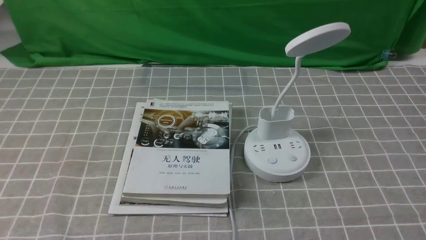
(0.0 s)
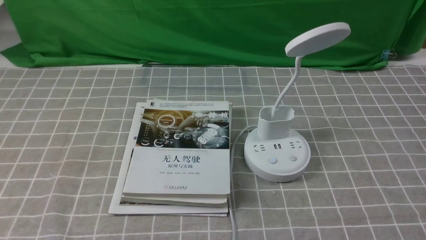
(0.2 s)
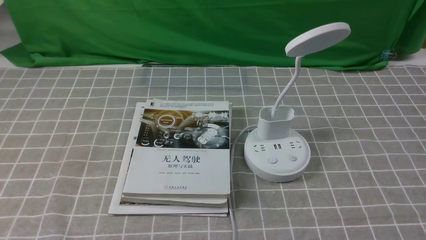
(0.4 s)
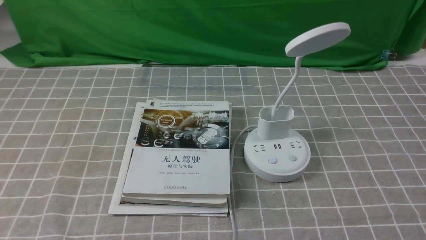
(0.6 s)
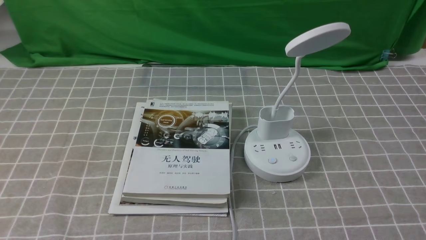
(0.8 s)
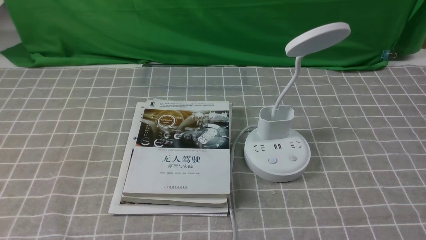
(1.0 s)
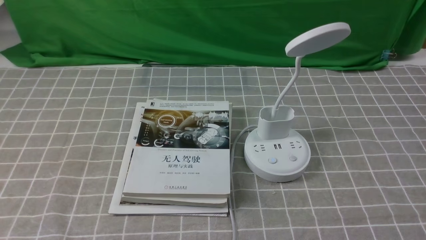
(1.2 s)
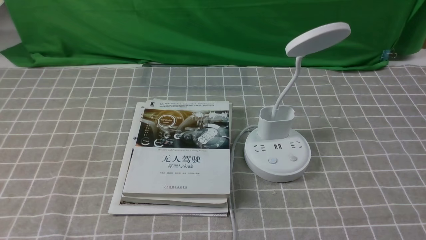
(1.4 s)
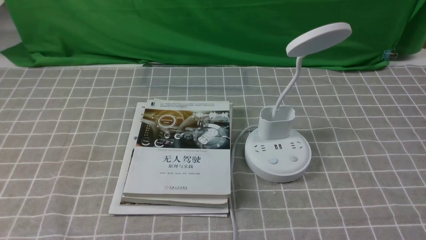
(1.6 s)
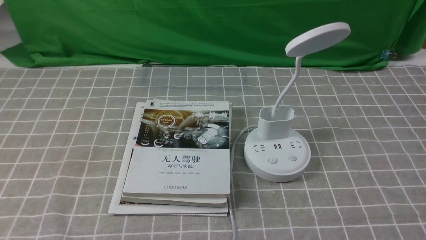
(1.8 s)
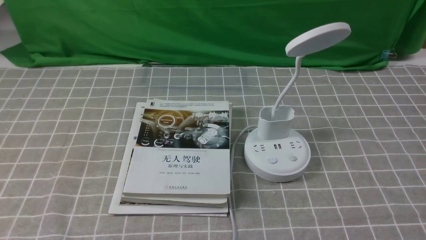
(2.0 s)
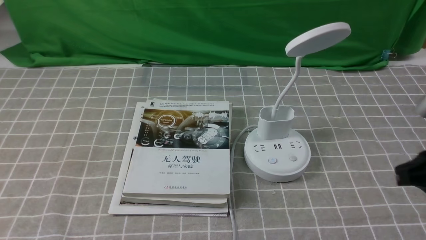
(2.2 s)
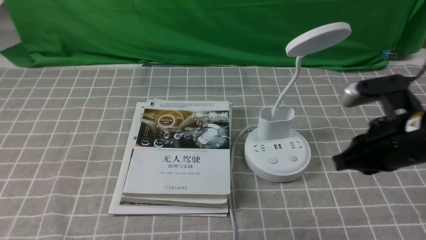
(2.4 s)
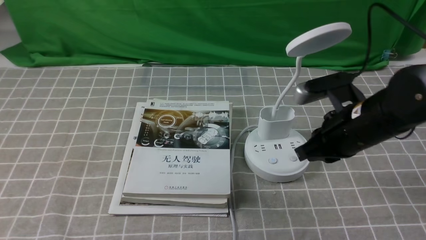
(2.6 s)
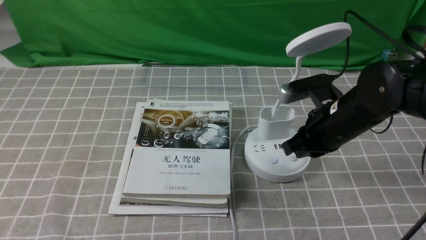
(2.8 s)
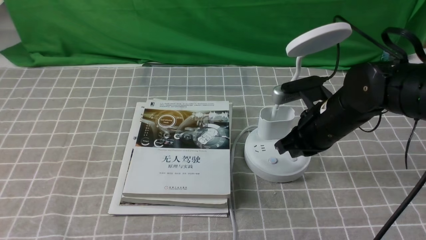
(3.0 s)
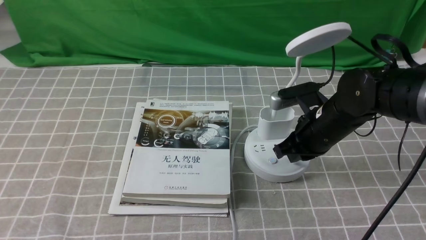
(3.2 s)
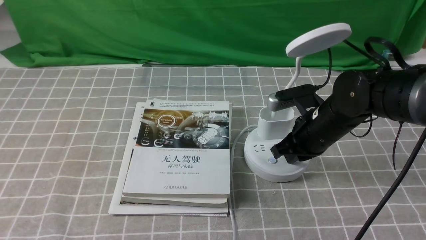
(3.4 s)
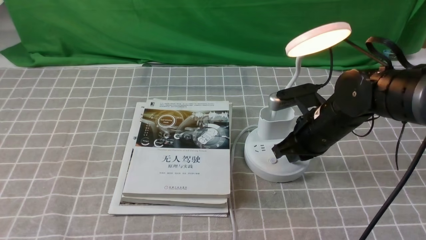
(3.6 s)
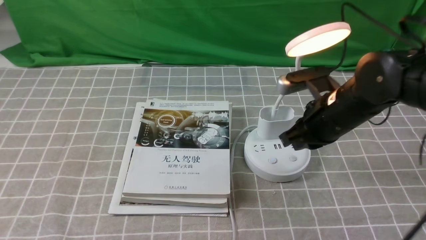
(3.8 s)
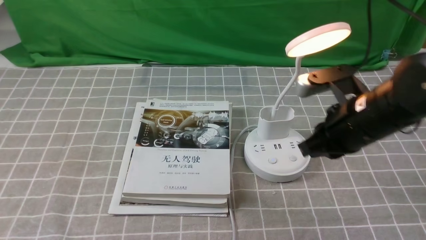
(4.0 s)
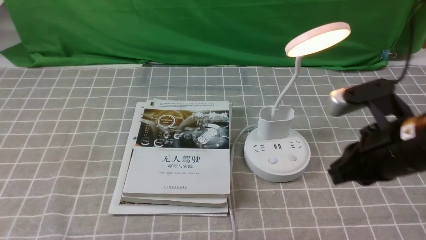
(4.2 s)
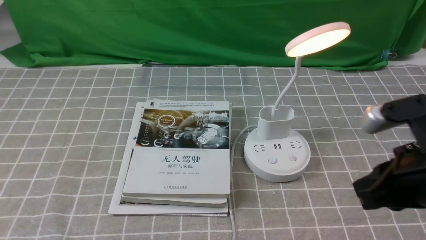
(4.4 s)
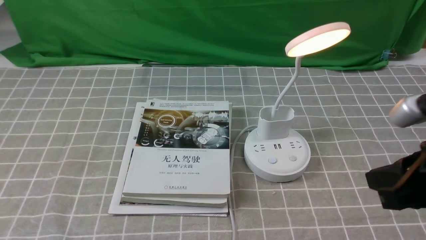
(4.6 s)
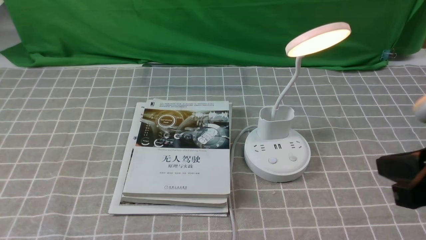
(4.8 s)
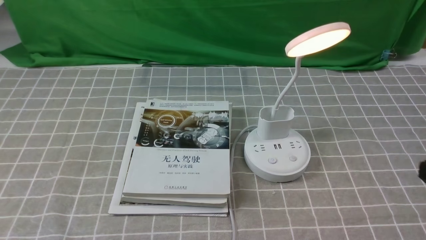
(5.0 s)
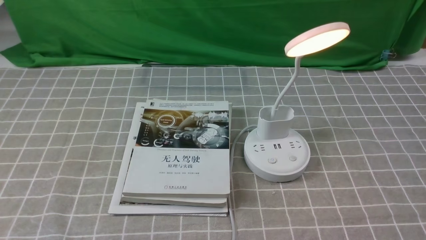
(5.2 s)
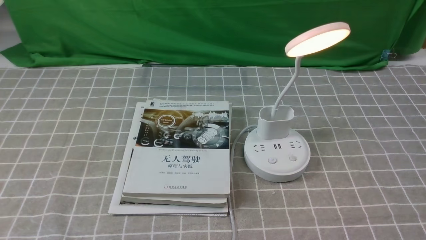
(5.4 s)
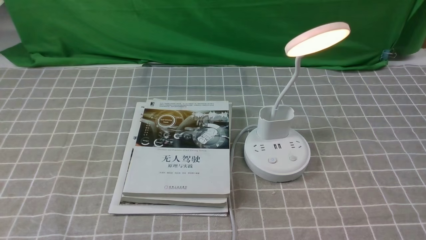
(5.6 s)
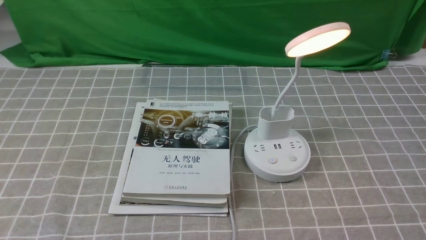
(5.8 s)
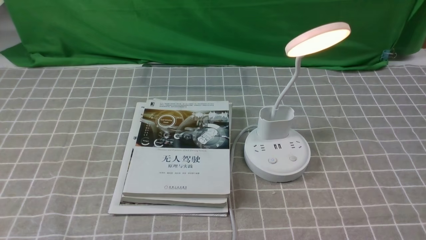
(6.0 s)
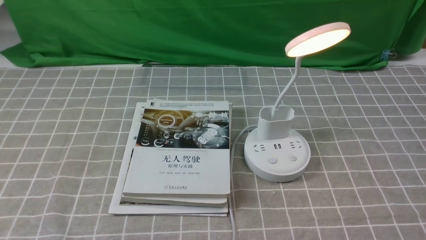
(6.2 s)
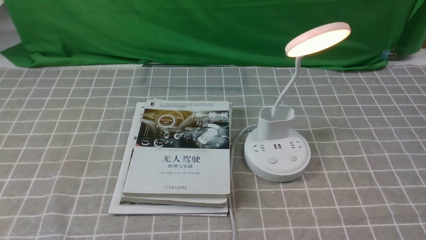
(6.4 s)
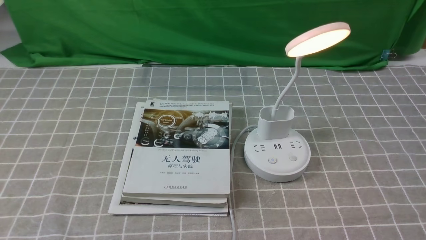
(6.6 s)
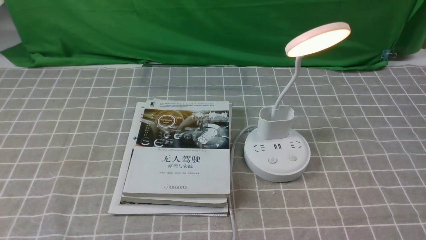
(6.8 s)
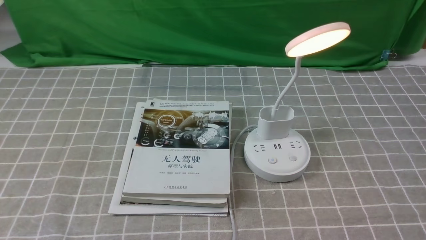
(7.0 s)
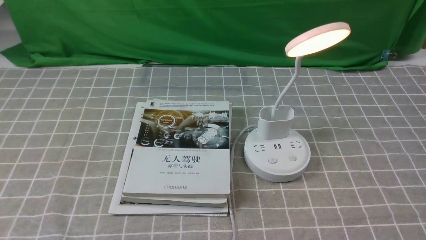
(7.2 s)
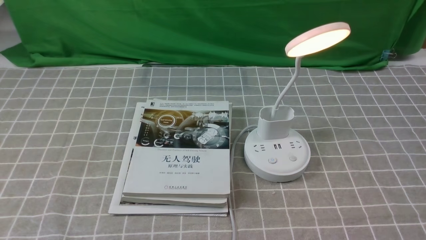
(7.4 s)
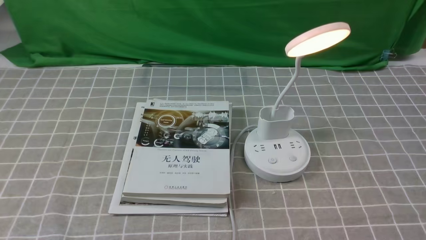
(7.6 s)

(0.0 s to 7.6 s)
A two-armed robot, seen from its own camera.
Step, 0.0 s - 3.8 s: use the right arm to press the button switch on the lamp holder.
1.6 s - 3.0 s: The right gripper shifts about 30 cm forward and to the left, and closes.
3.0 s - 4.6 s: The right gripper heads backward, upward and to the right, covering roughly 20 cm.
4.6 s - 6.0 s: The right gripper shifts approximately 15 cm downward, backward and to the right.
